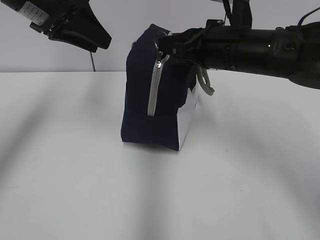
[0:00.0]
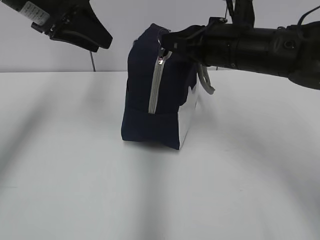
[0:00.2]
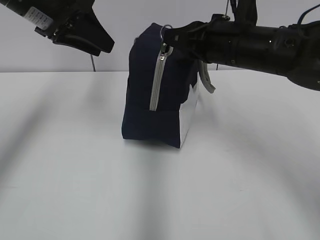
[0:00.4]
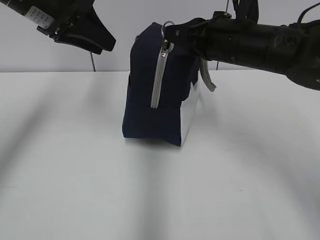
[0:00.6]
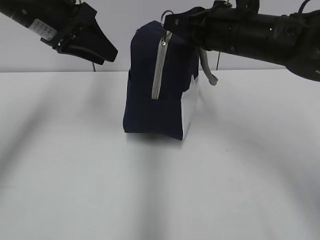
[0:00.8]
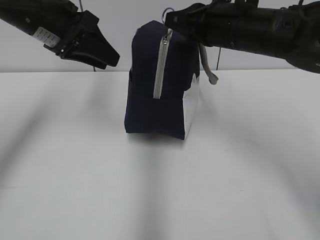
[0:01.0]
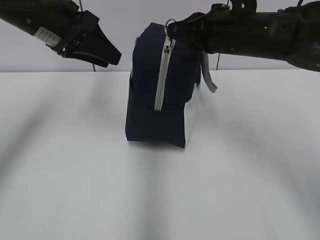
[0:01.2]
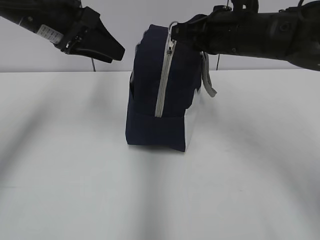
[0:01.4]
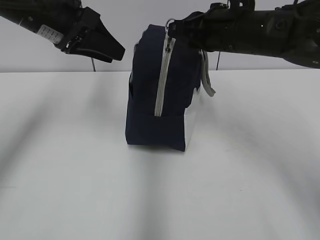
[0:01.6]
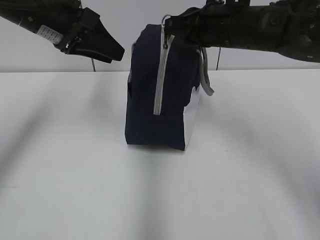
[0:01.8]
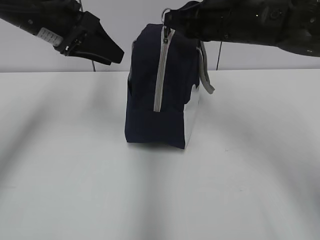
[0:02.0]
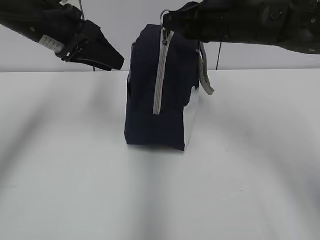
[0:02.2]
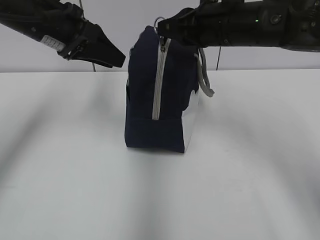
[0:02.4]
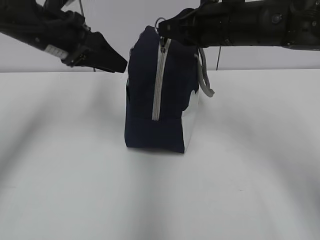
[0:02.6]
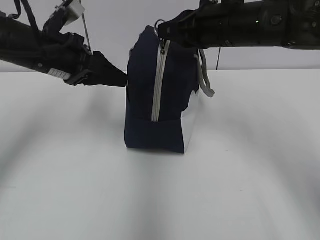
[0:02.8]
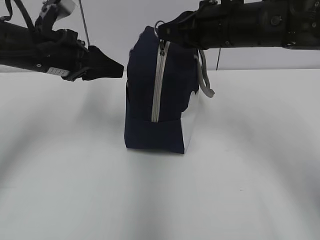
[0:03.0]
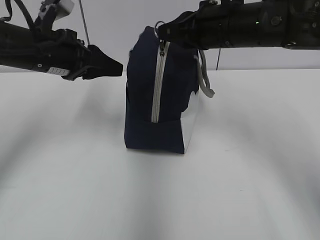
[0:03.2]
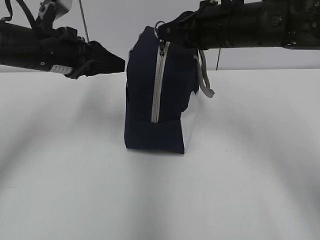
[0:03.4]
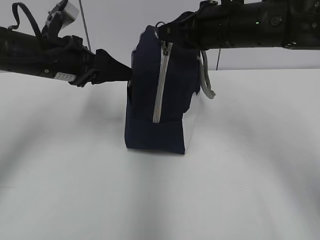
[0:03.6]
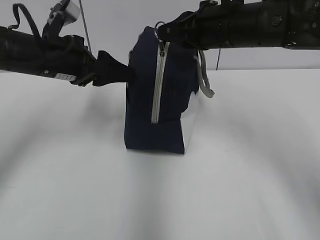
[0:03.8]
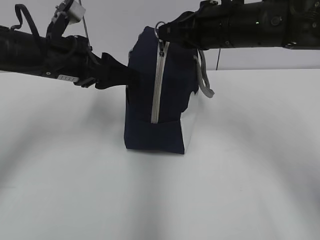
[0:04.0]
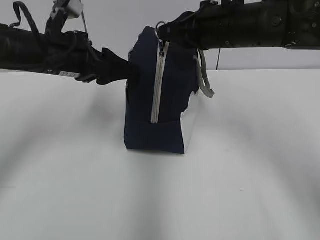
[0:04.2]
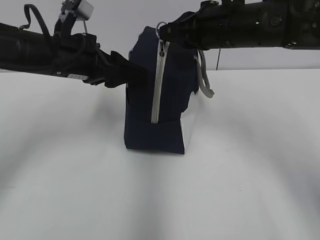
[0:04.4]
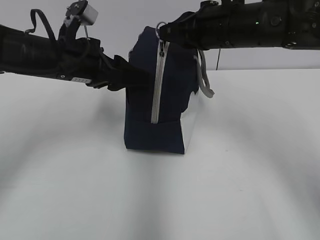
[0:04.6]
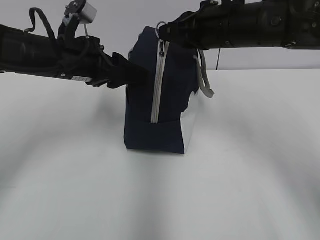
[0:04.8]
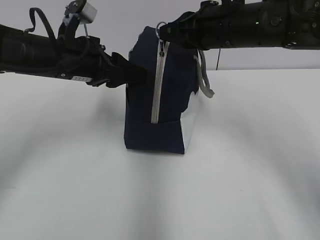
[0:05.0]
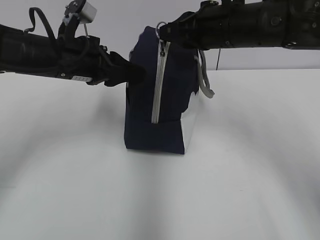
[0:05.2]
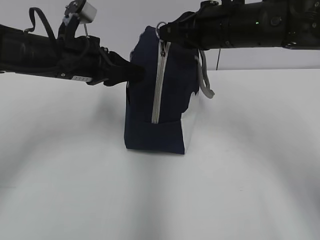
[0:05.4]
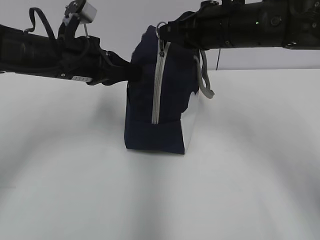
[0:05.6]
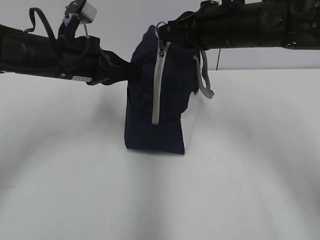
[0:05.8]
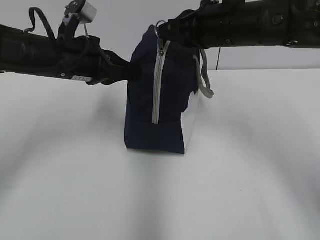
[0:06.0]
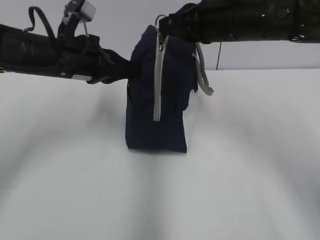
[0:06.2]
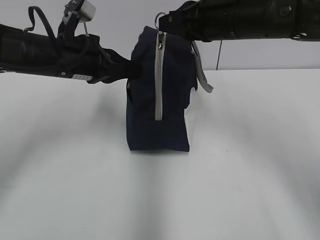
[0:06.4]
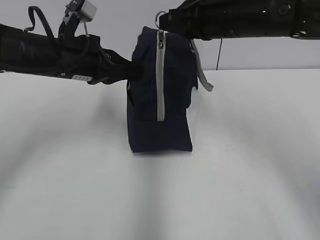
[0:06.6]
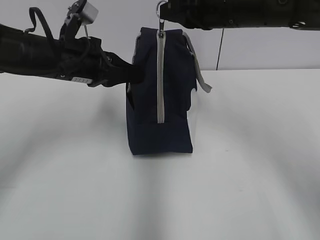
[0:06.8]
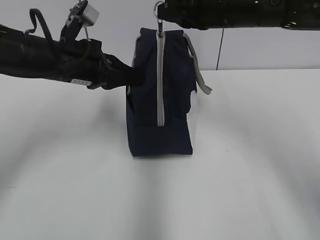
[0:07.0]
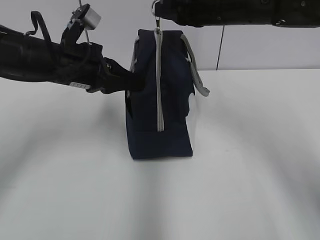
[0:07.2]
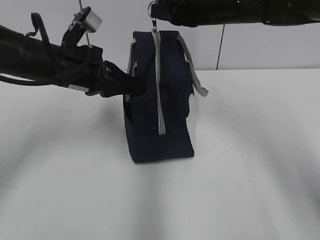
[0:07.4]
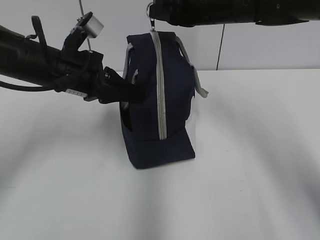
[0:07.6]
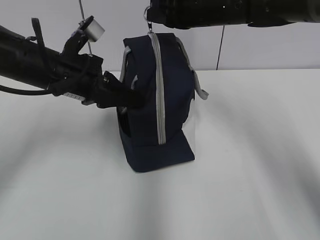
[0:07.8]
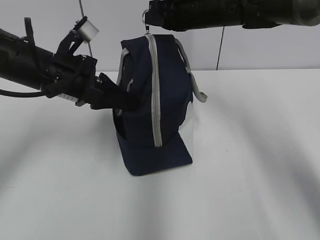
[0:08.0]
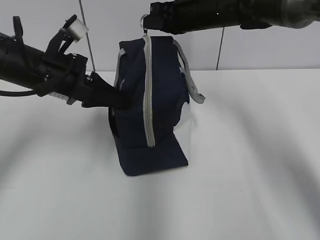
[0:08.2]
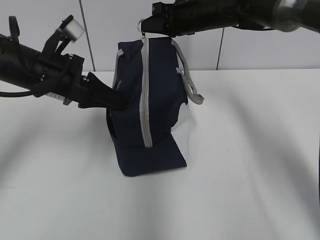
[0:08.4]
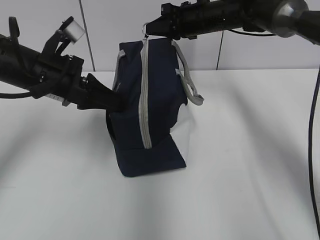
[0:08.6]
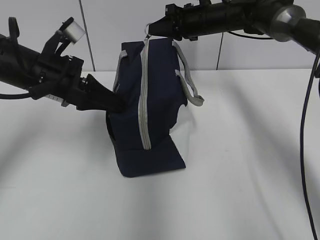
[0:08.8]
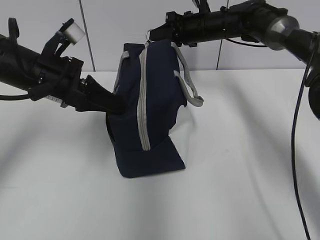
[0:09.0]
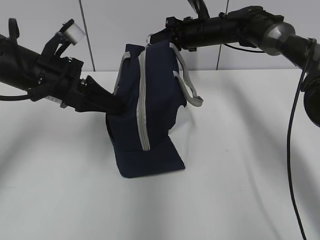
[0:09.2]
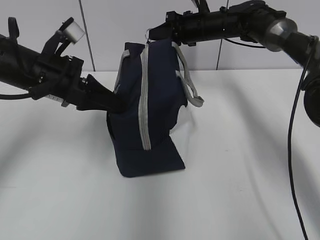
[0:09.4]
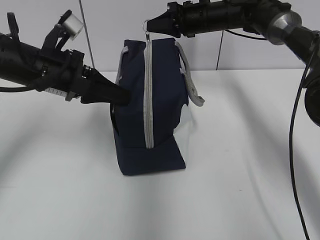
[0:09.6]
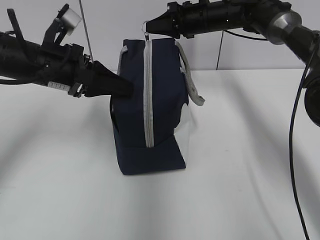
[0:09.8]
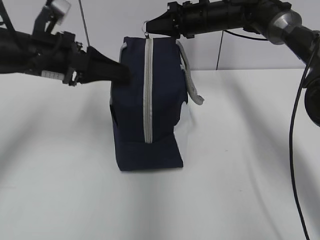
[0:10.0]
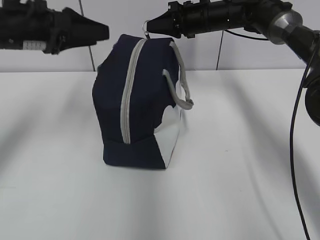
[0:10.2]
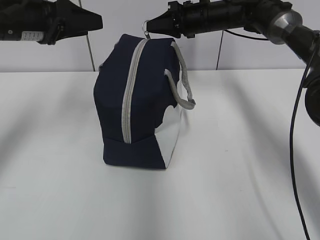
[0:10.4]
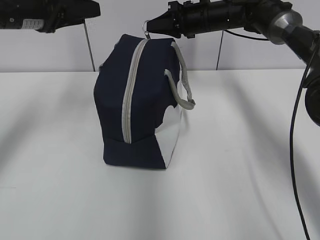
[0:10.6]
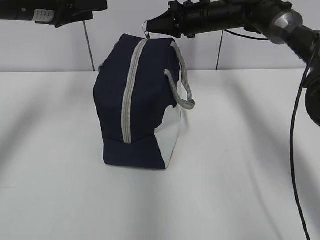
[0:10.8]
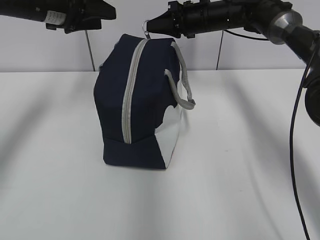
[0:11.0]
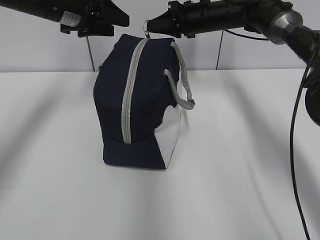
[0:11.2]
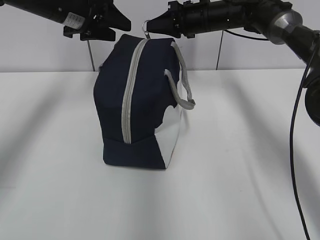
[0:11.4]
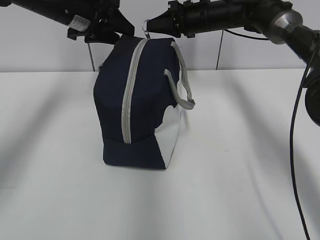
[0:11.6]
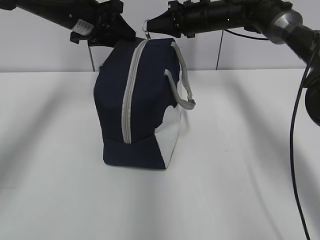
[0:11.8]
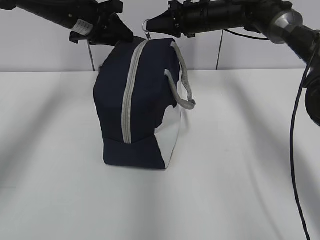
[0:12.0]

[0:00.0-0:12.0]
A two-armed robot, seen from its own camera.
Step, 0:00.0 to 0:09.6: Grab the lunch bag with your left hand.
0:00.0 to 0:01.6: The grippers make only small movements.
0:01.6 to 0:03.0: The left gripper travels downward by approximately 5 cm.
0:03.0 to 0:04.4: The left gripper opens up.
0:04.4 to 0:06.0: The left gripper closes.
0:06.0 to 0:07.6: The right gripper travels forward by about 5 cm.
0:07.6 to 0:09.0: The right gripper heads forward and downward, covering roughly 15 cm.
0:09.0 to 0:10.4: The left gripper is displaced upward by roughly 5 cm, and opens up.
0:10.4 to 0:12.0: The left gripper is displaced forward by approximately 10 cm.

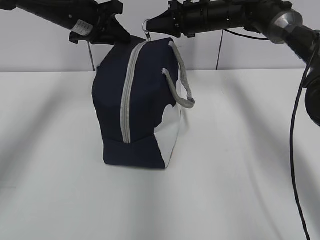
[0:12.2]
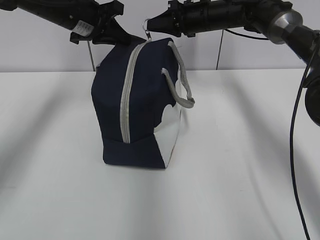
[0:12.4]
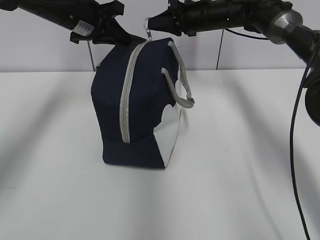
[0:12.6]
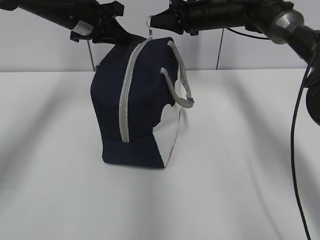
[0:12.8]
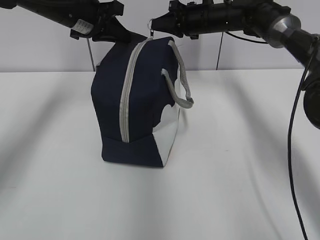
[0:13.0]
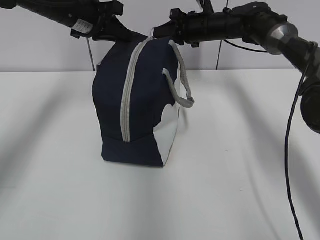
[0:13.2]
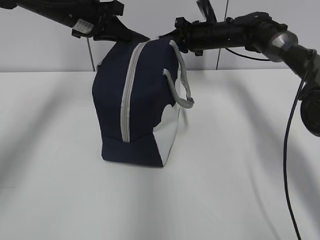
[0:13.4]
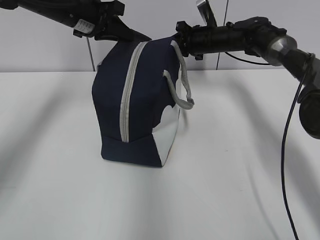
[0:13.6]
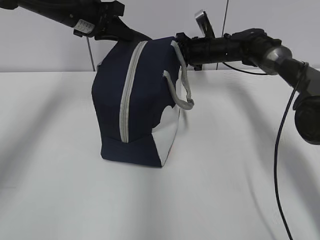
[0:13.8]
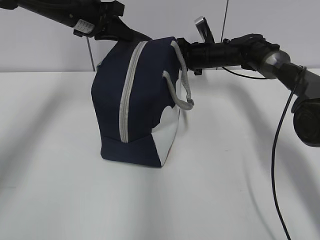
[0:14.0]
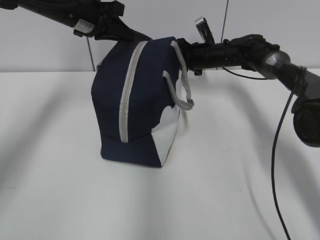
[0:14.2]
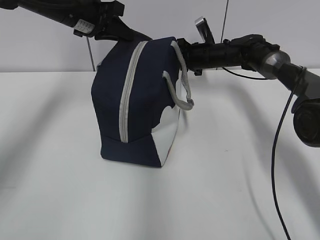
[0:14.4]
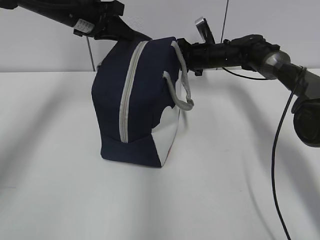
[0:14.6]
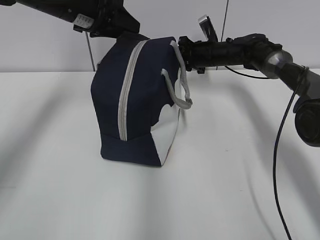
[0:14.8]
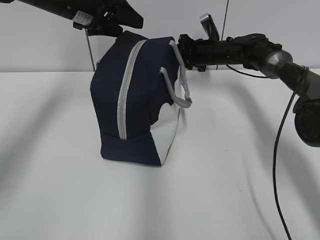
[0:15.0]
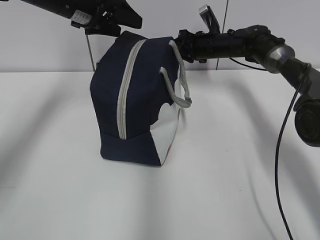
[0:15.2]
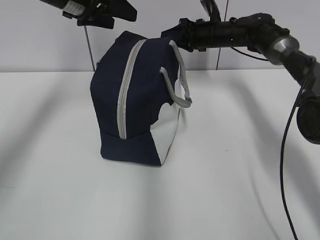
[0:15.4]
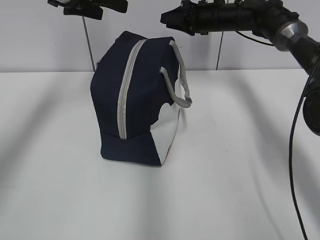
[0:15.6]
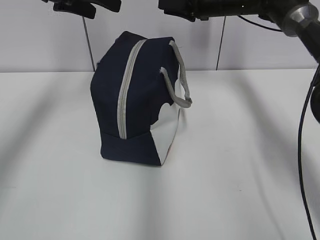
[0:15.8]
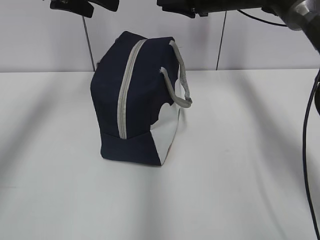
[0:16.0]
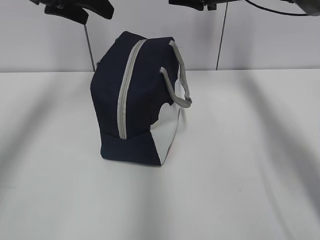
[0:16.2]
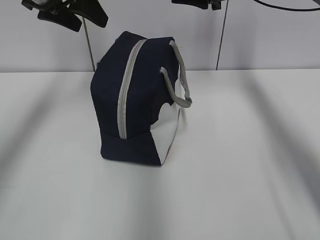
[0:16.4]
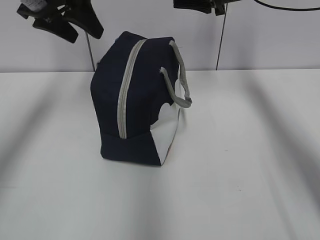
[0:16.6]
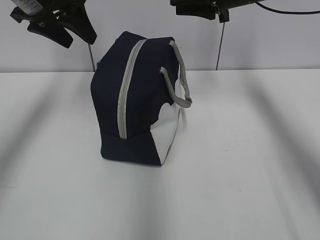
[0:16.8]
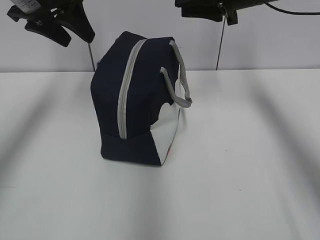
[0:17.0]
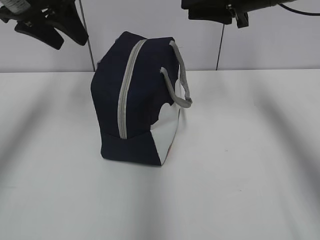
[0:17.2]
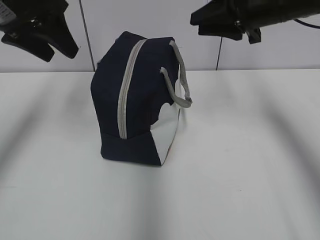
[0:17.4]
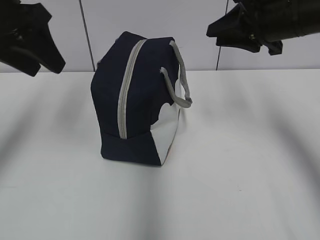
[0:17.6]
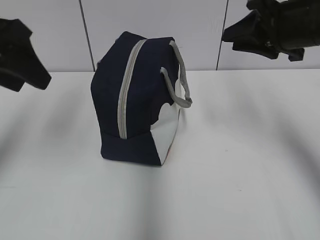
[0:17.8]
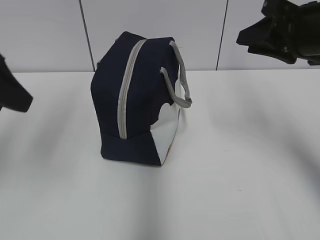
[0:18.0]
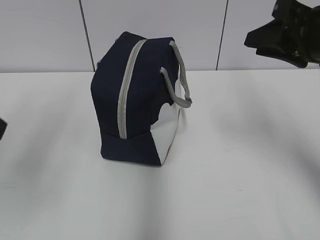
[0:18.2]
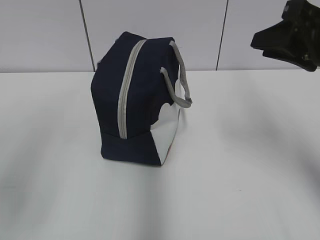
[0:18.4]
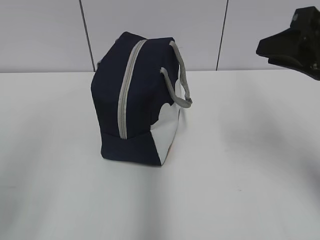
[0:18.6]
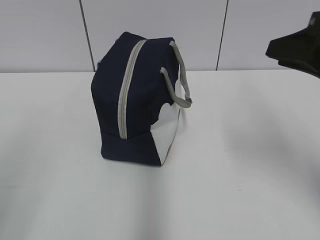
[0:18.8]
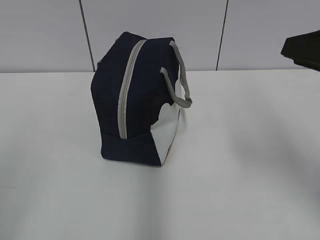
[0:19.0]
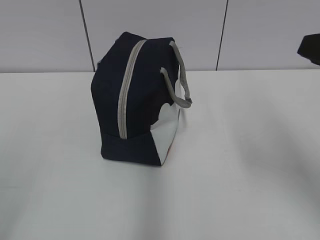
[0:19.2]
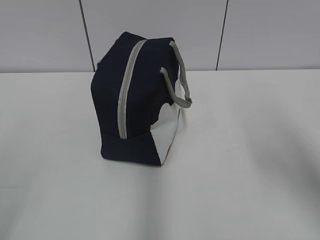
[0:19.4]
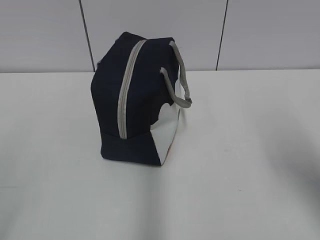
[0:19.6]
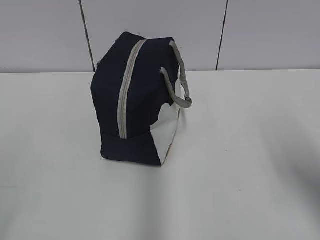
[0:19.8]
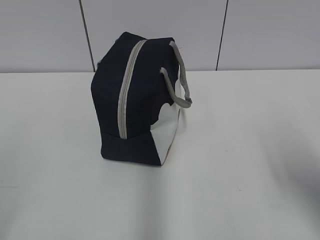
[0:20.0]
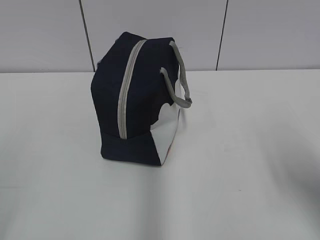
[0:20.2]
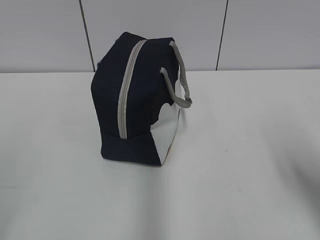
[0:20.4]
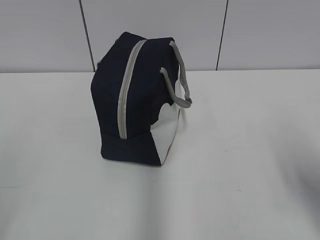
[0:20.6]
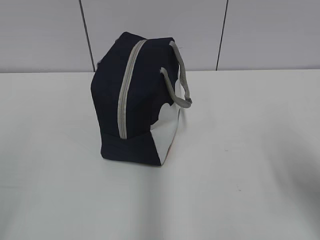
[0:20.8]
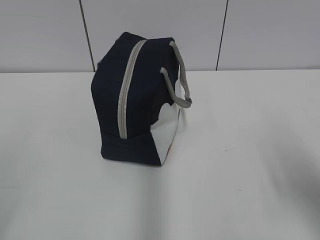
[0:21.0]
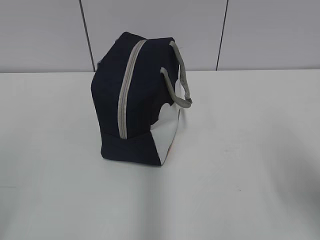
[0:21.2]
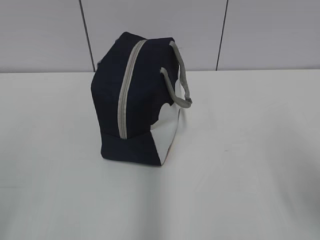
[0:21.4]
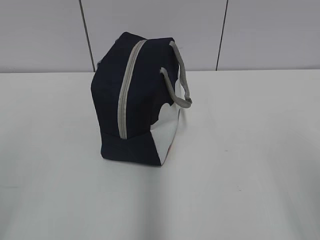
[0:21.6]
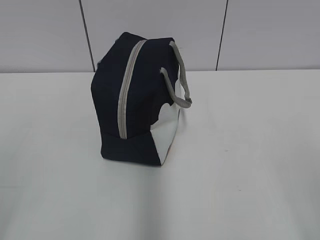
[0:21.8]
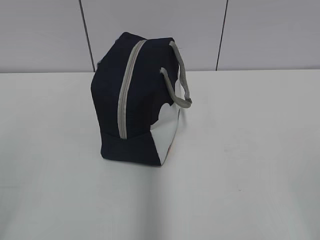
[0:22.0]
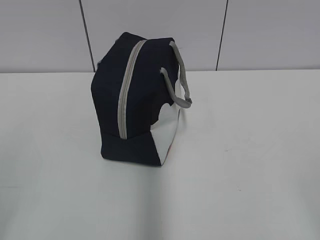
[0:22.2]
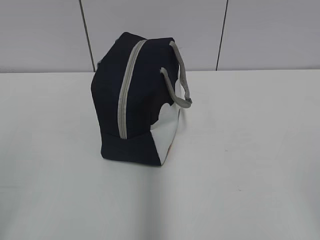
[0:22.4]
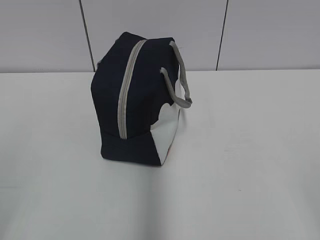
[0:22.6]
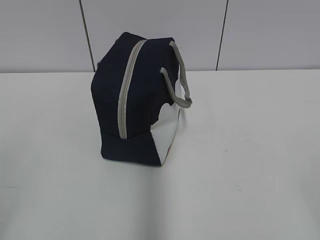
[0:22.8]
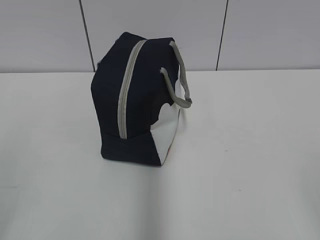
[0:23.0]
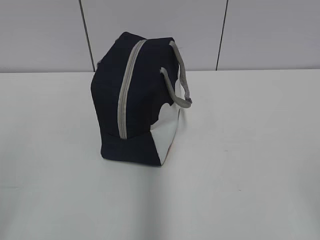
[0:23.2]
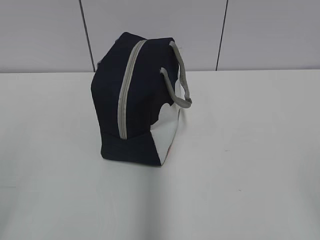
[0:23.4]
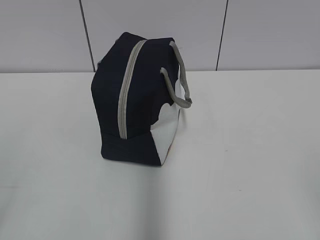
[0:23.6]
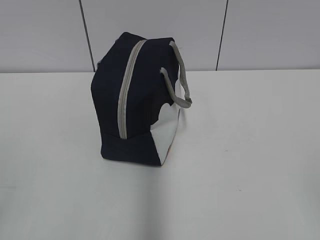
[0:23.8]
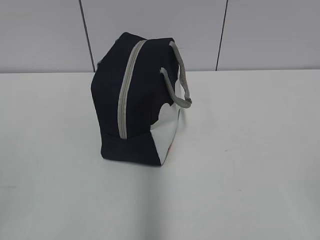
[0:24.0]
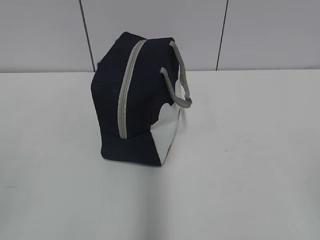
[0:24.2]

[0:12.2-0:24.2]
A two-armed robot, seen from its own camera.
0:12.2 to 0:13.8: The right gripper goes approximately 10 cm downward.
0:13.8 to 0:15.2: The left gripper opens up, while the right gripper opens its fingers.
0:15.2 to 0:16.6: The right gripper moves upward and backward, some 20 cm. The left gripper travels backward by about 5 cm.
0:16.6 to 0:18.2: Both grippers travel together backward, some 25 cm.
0:18.2 to 0:19.8: The right gripper is displaced backward by some 15 cm.
0:21.2 to 0:22.6: The right gripper goes approximately 15 cm backward, and opens its fingers.
